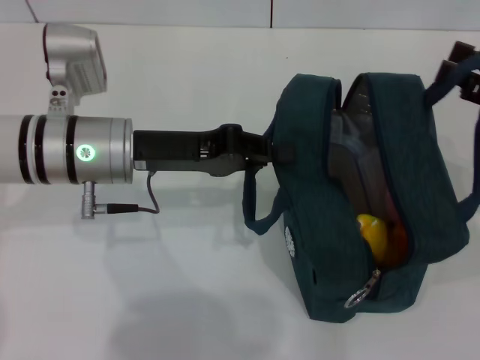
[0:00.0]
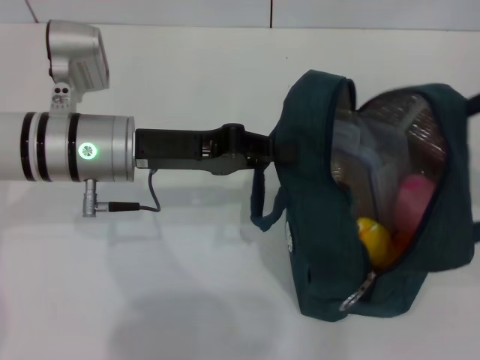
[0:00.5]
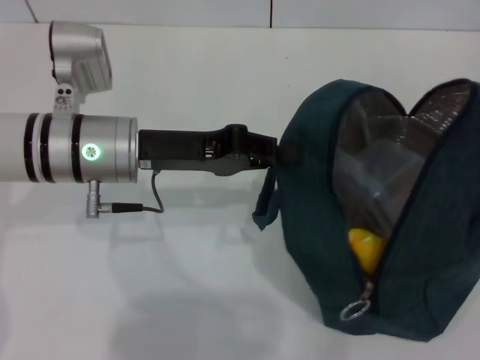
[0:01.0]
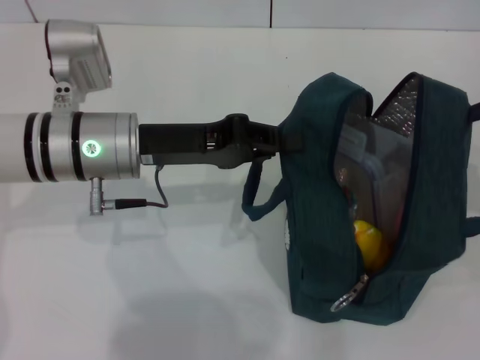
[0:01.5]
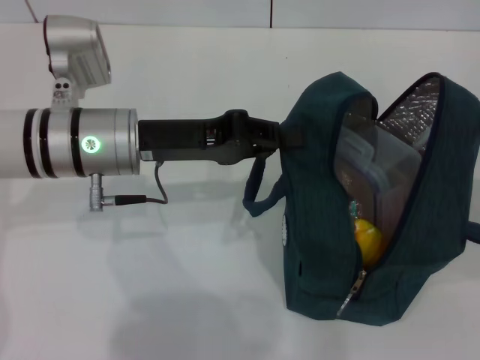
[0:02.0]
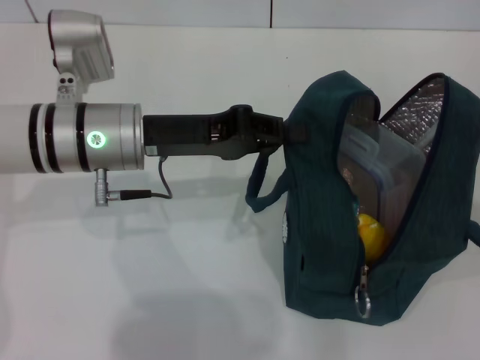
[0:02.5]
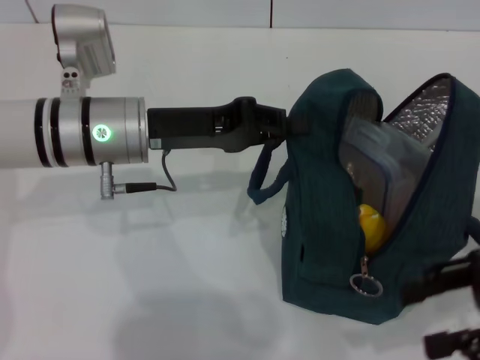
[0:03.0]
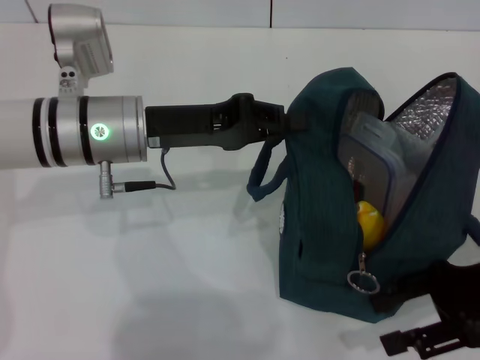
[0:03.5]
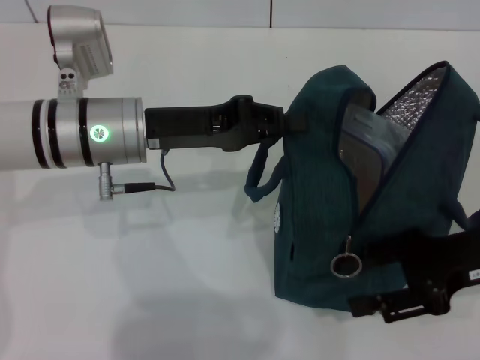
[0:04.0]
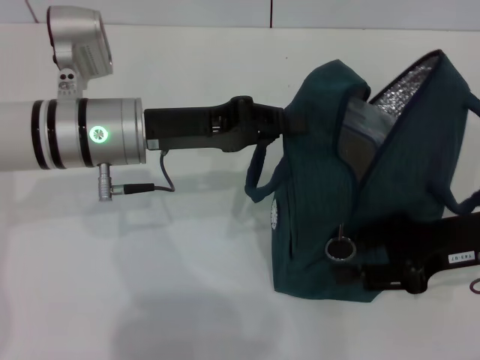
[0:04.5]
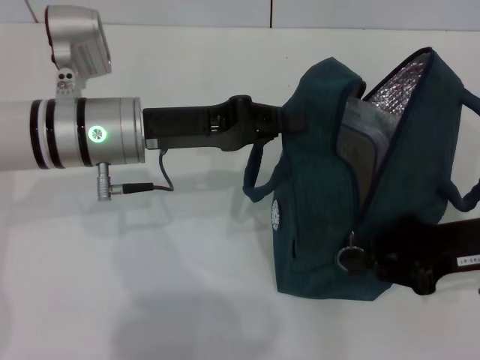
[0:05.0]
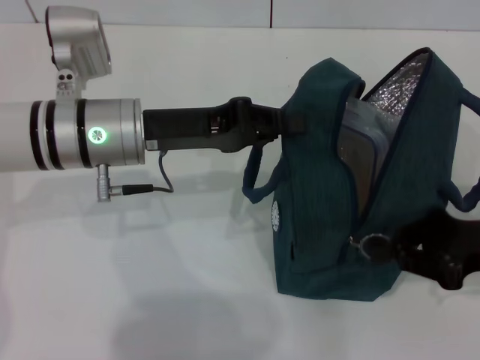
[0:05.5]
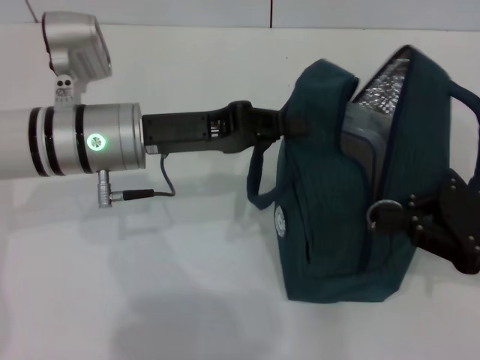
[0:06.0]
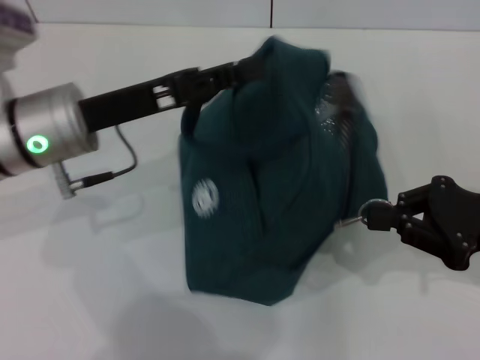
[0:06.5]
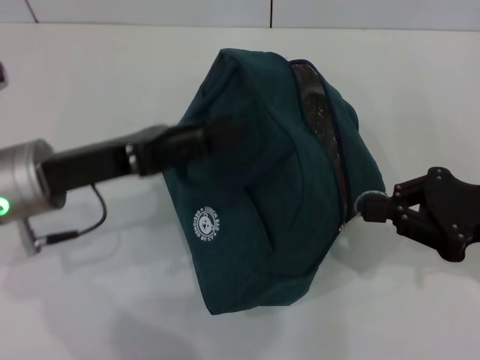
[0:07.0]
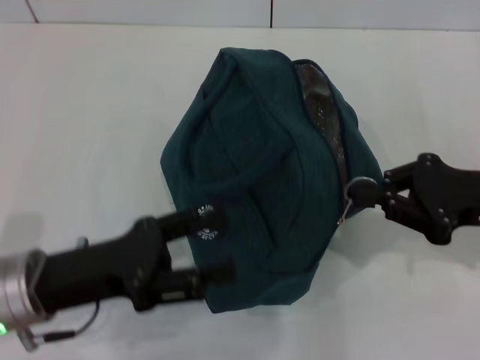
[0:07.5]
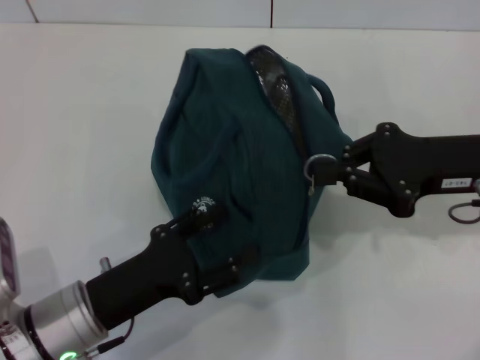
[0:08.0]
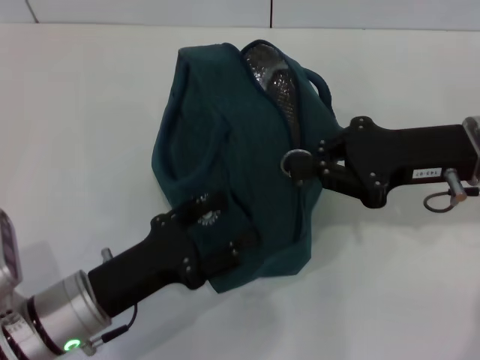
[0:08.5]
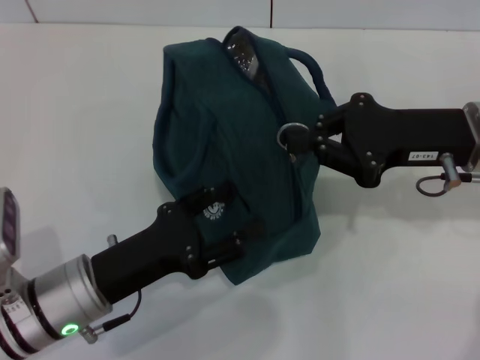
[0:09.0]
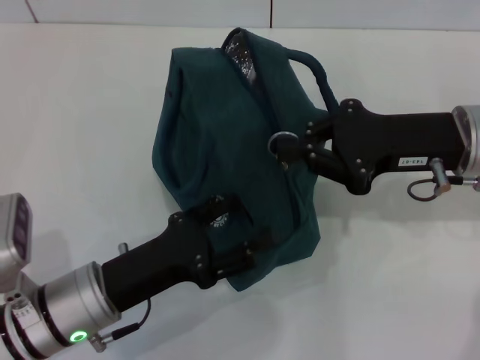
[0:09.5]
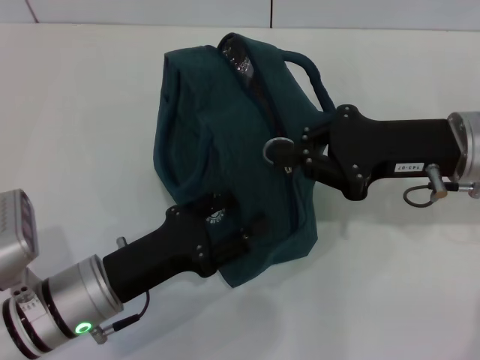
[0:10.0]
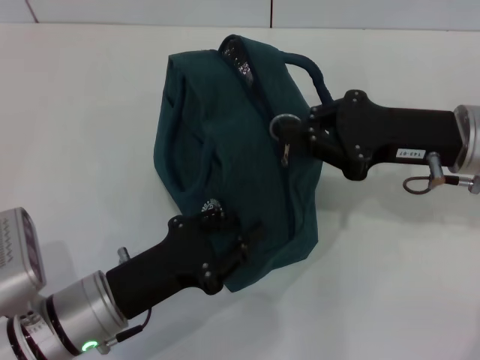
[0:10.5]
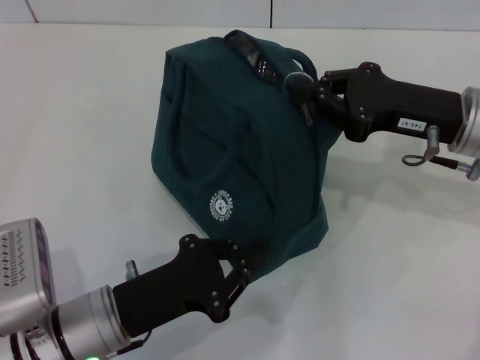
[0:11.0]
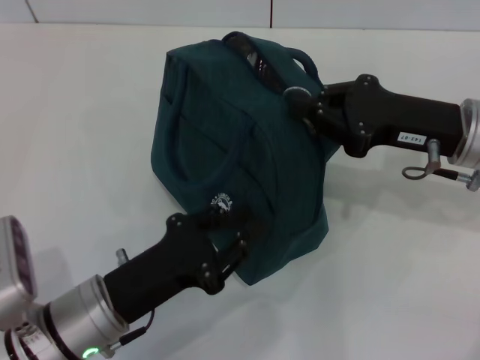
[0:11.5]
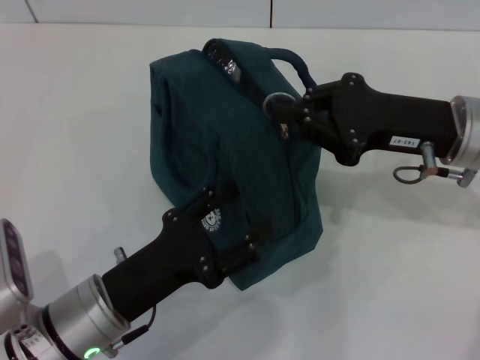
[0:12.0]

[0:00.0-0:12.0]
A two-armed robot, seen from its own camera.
Step, 0:00.0 to 0:02.5: Hold the lunch bag with your right hand.
0:00.0 to 0:02.0: The right gripper shifts approximately 5 cm to the right.
0:02.0 to 0:04.0: The right gripper is displaced to the left and downward by roughly 15 cm.
0:04.0 to 0:06.0: The right gripper closes up.
0:06.0 to 0:08.0: The left gripper is displaced backward and downward by approximately 20 cm, and opens, while the right gripper goes some 5 cm to the left and forward.
0:08.0 to 0:10.0: The grippers stay close to where they were, moving slightly.
0:10.0 to 0:12.0: The left gripper closes, then opens again.

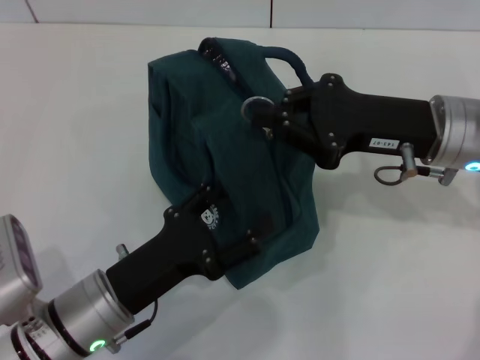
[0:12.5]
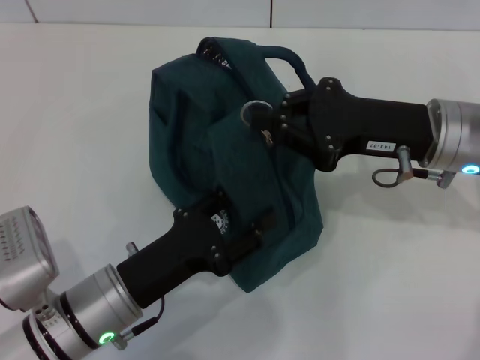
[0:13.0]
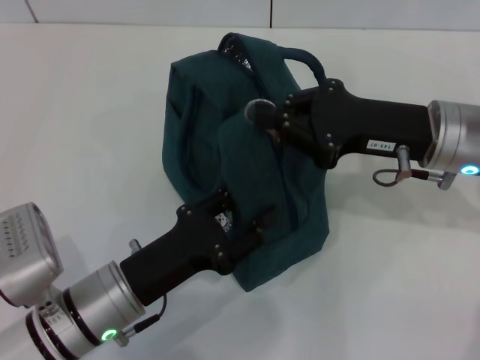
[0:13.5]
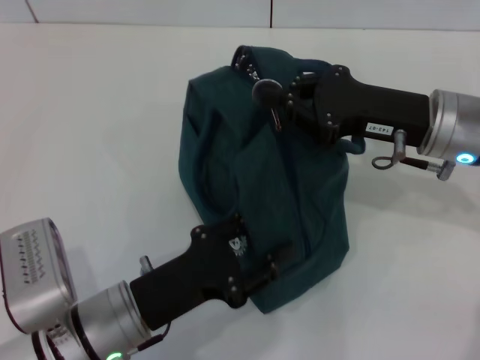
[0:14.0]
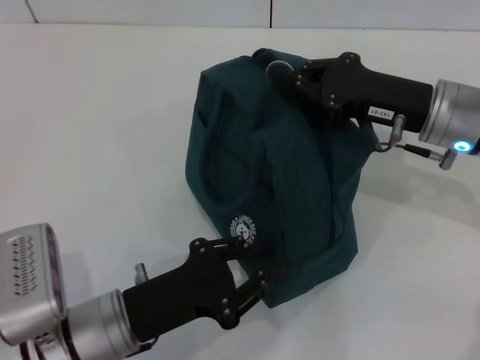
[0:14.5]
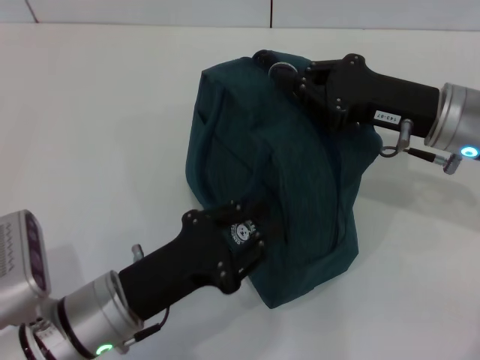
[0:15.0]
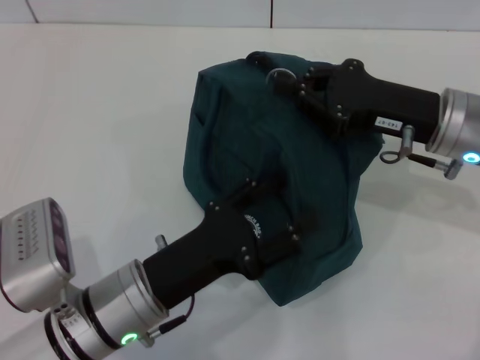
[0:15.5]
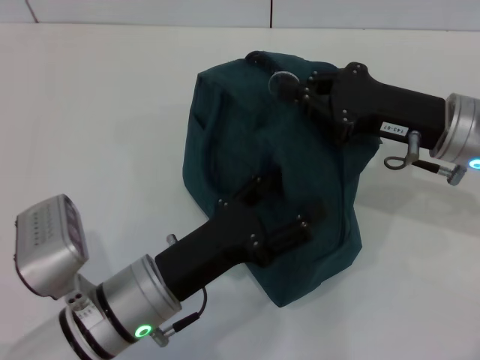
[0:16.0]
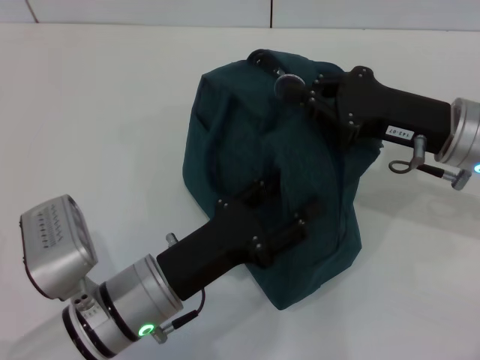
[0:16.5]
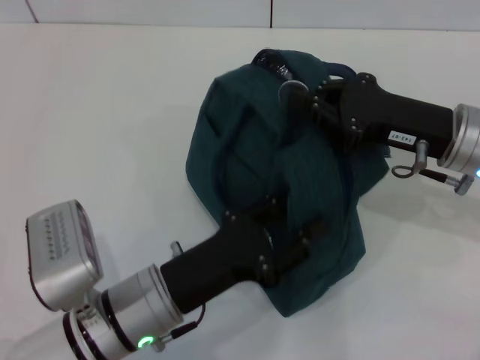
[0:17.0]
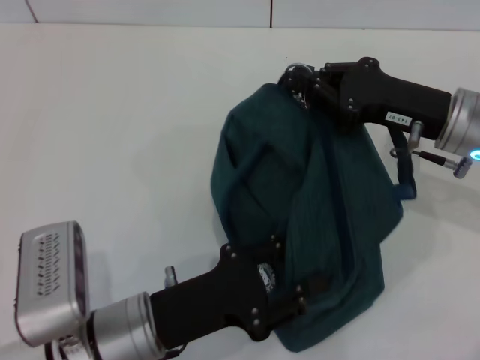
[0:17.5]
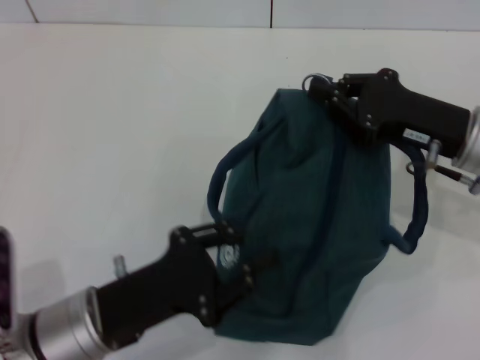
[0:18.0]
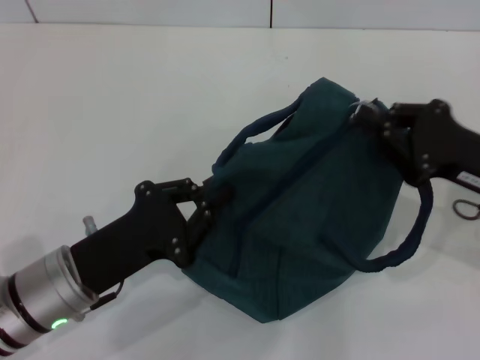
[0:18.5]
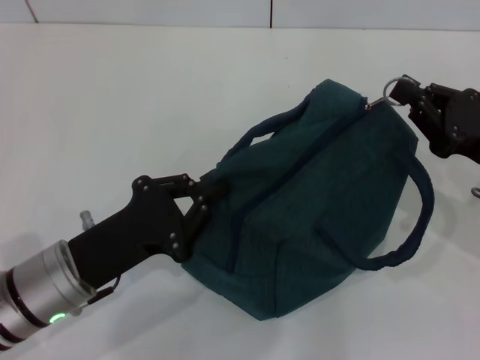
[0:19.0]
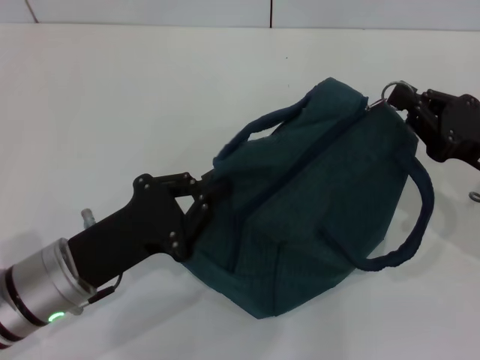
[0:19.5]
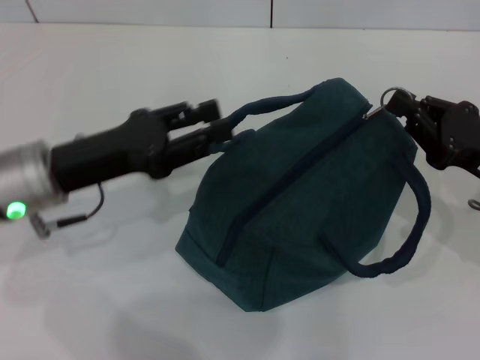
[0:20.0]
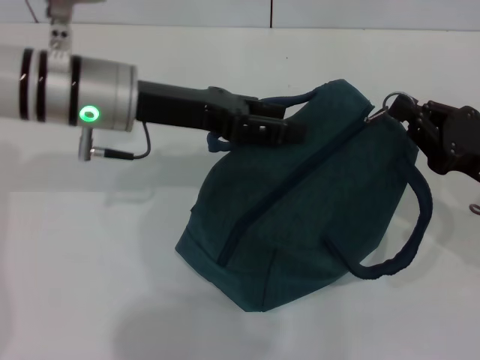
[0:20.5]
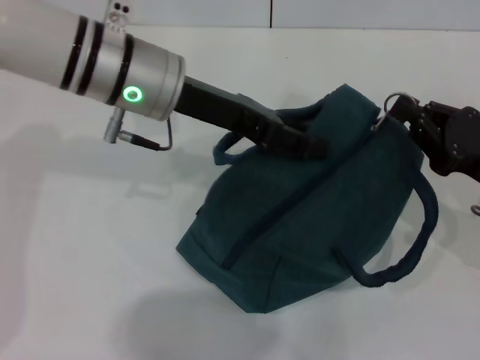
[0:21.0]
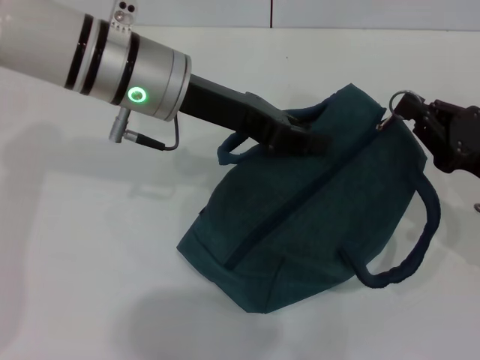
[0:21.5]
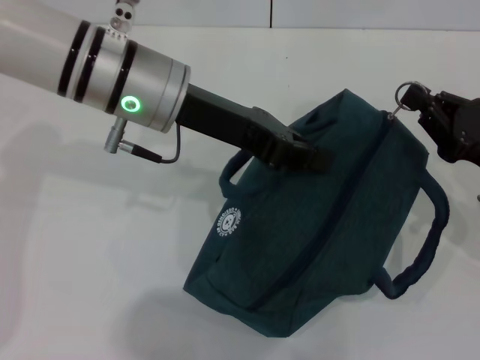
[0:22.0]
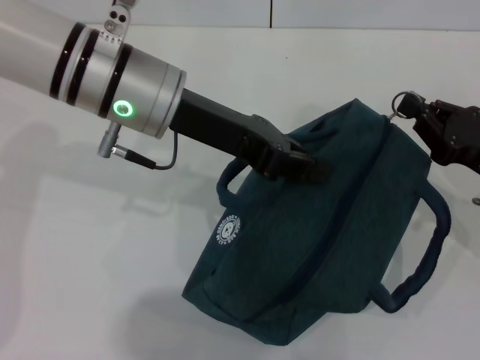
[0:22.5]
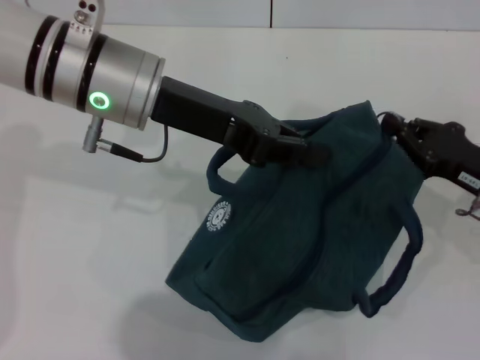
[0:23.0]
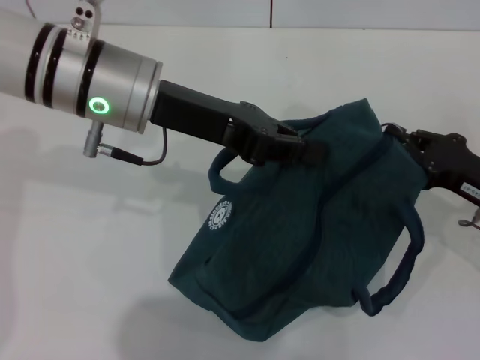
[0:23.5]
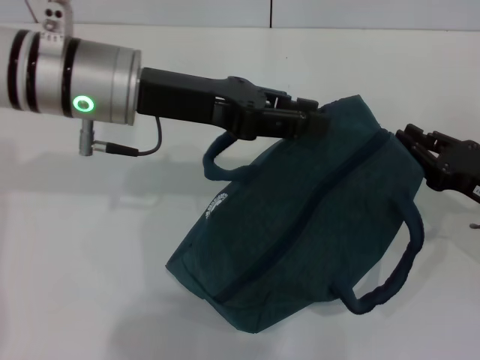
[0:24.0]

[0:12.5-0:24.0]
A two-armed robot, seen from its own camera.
0:12.5 to 0:14.5: The left gripper closes up.
0:14.5 to 0:16.5: The left gripper opens its fingers.
0:16.5 to 0:18.5: The left gripper heads to the left, covering about 5 cm, and closes its fingers, while the right gripper travels to the right by some 5 cm.
0:18.5 to 0:20.0: The left gripper moves forward and upward, approximately 10 cm.
0:20.0 to 0:22.0: The left gripper heads to the right, upward and forward, covering approximately 15 cm, and opens and closes again.

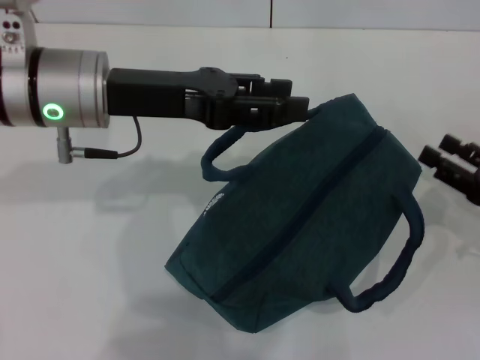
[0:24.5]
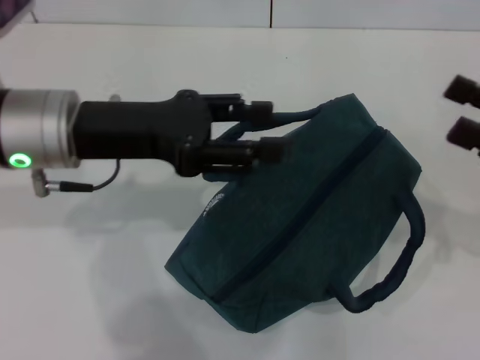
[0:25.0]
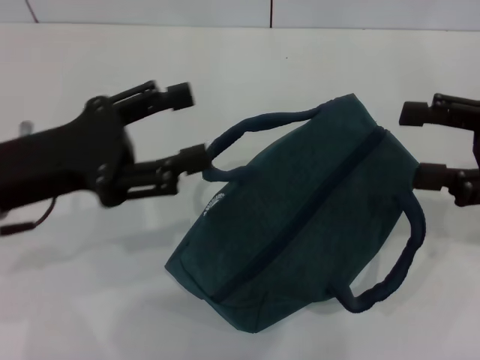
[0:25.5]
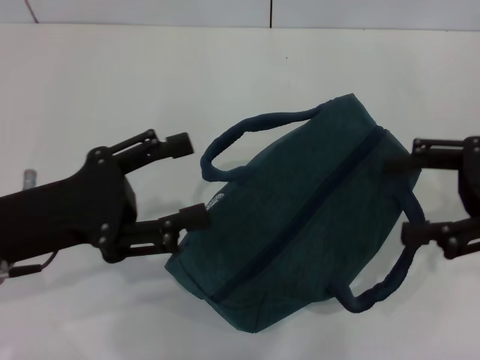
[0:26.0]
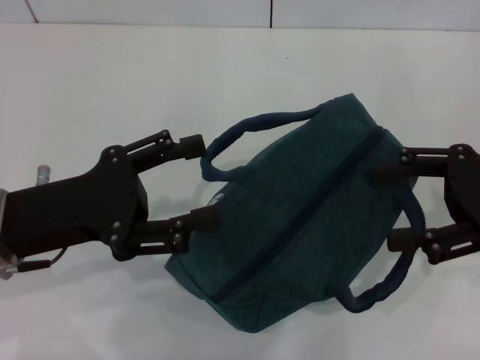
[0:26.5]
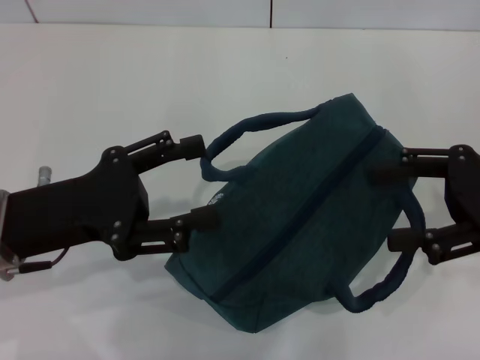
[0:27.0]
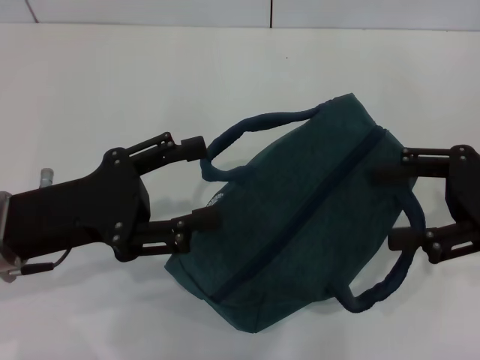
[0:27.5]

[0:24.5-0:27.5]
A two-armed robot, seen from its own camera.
0:24.5 to 0:26.0: The left gripper heads backward, to the left and downward, covering roughly 15 cm. The right gripper travels upward by approximately 10 cm, and opens.
0:26.0 to 0:27.5: Neither gripper changes place.
